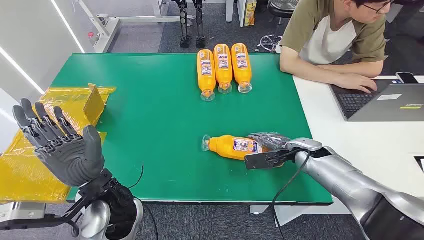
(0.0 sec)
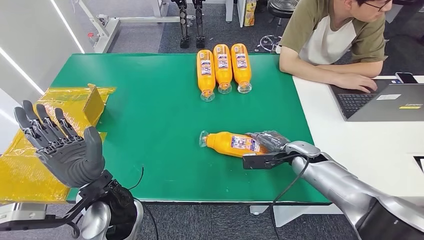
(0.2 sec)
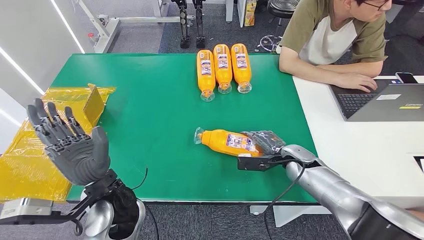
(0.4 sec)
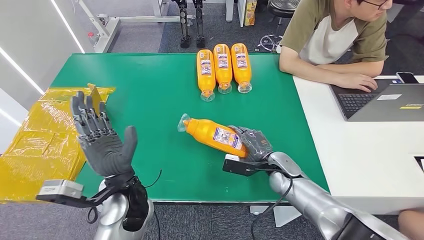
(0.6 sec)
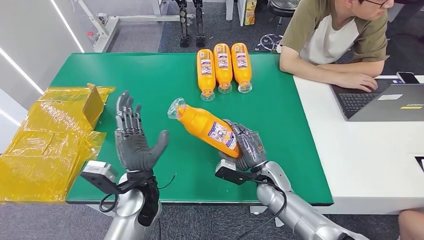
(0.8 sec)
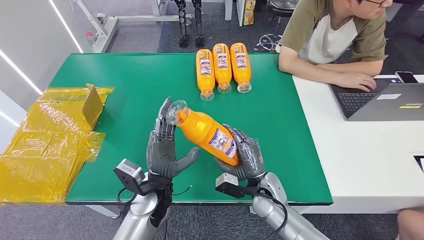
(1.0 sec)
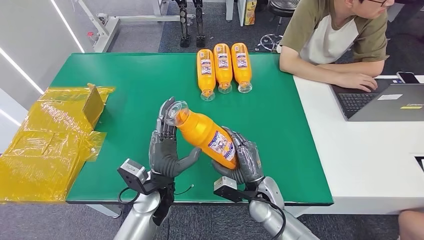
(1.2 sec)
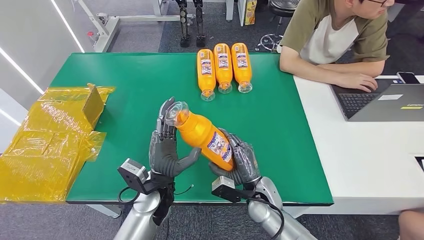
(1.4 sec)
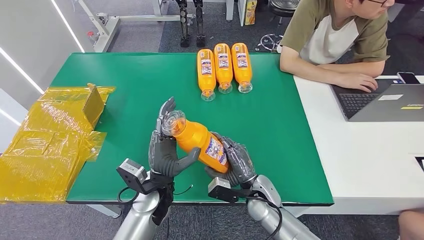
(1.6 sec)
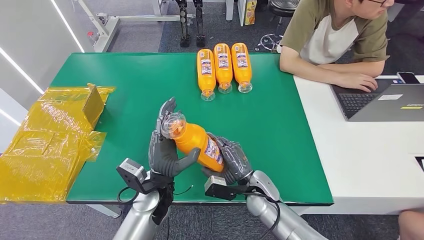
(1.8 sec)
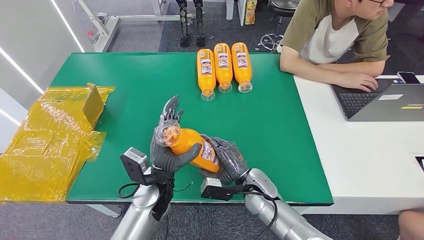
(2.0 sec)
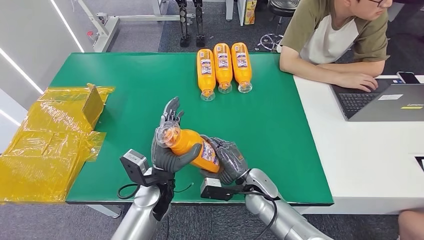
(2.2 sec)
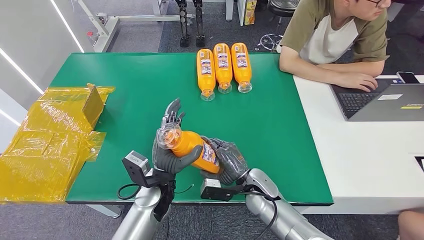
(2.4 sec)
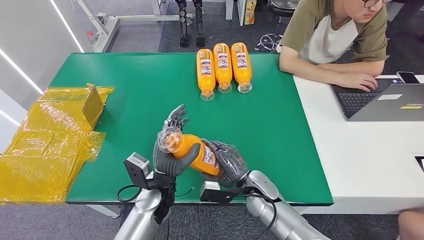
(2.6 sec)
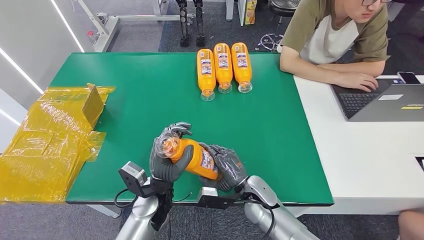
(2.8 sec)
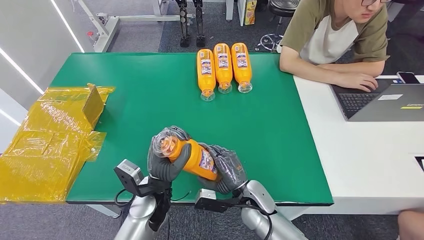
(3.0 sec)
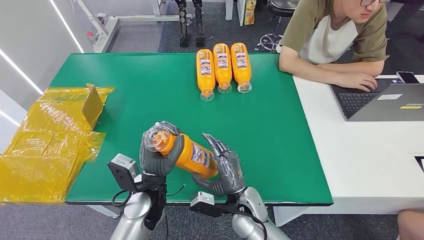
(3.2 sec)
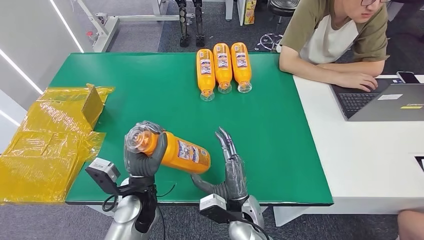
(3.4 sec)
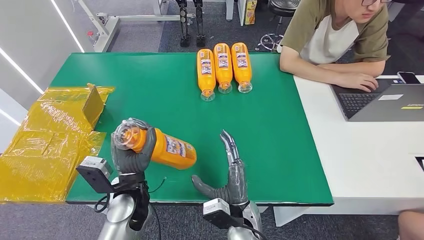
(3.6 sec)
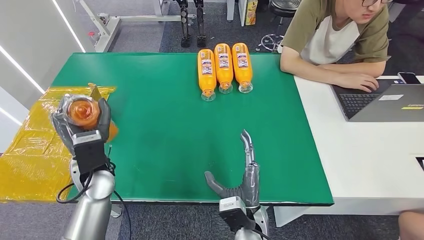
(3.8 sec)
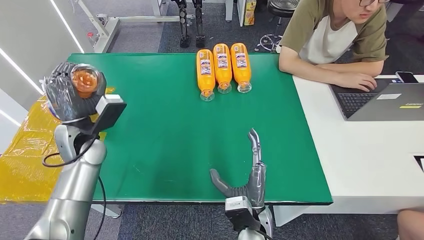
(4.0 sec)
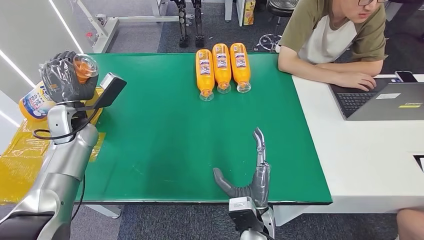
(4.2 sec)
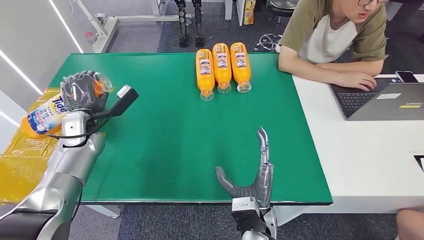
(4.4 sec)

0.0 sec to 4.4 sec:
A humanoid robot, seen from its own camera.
Step, 0.0 sec to 2.2 sec: Pick up the bottle from the table.
Step, 2.4 sec to 4.4 sec: Turn the bottle to the front side.
